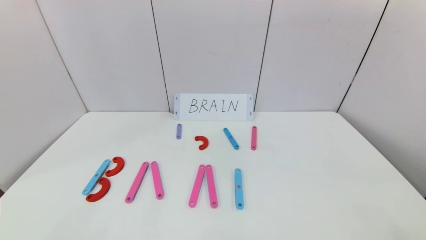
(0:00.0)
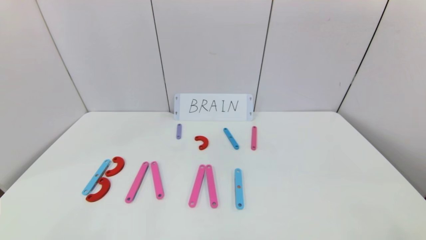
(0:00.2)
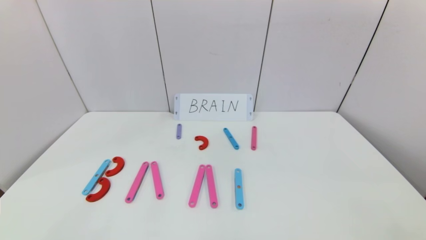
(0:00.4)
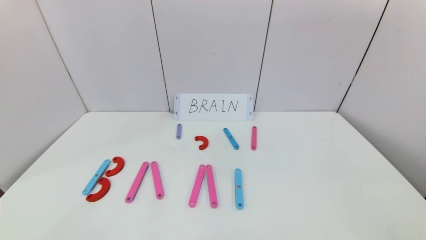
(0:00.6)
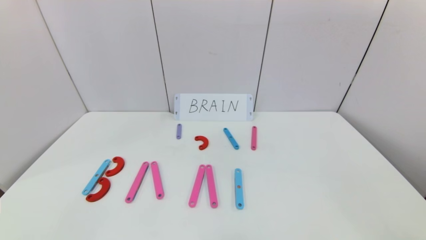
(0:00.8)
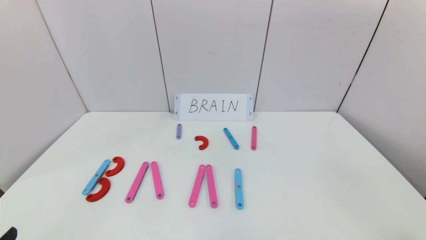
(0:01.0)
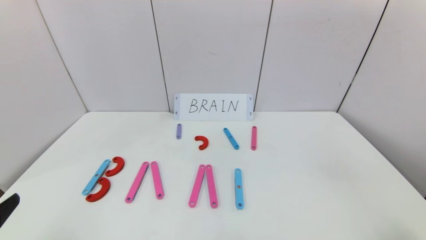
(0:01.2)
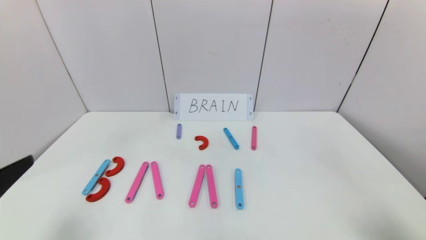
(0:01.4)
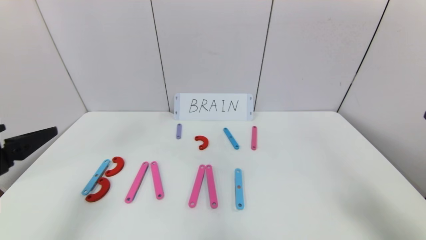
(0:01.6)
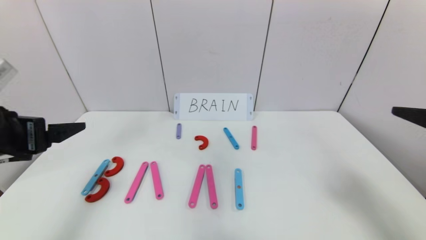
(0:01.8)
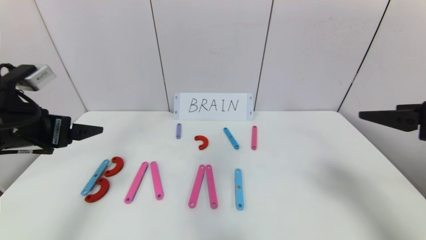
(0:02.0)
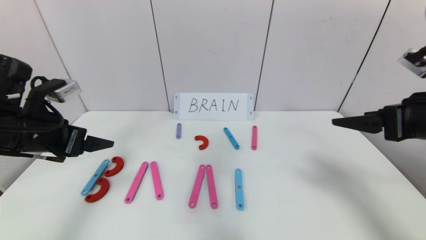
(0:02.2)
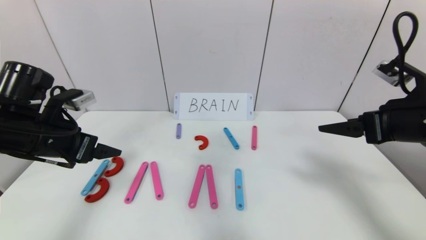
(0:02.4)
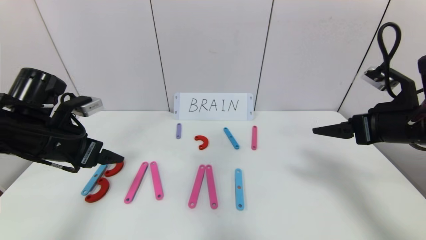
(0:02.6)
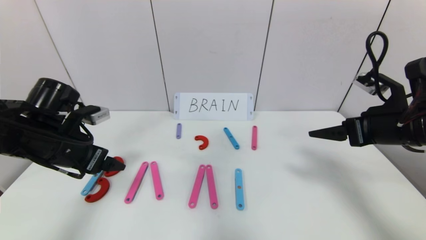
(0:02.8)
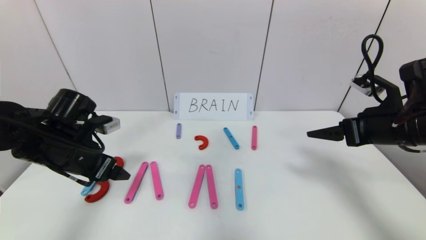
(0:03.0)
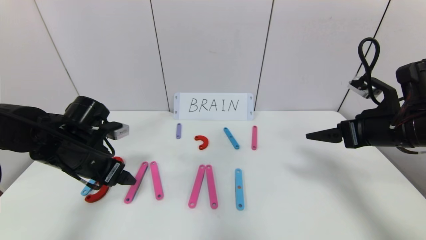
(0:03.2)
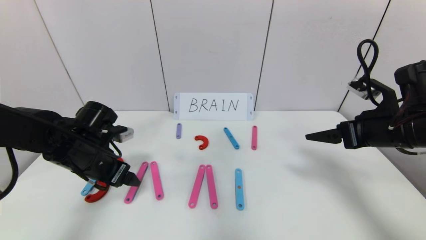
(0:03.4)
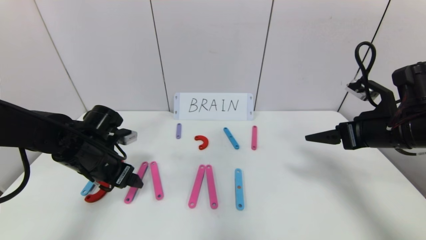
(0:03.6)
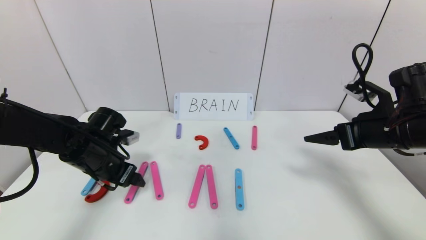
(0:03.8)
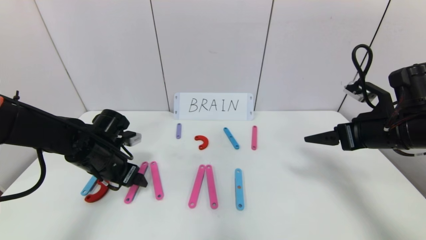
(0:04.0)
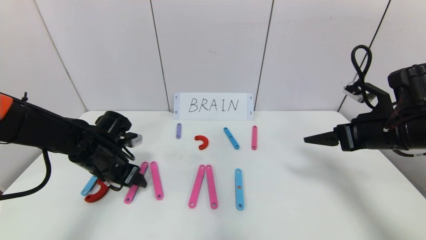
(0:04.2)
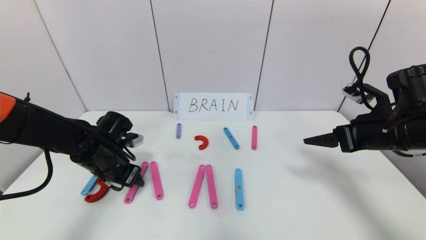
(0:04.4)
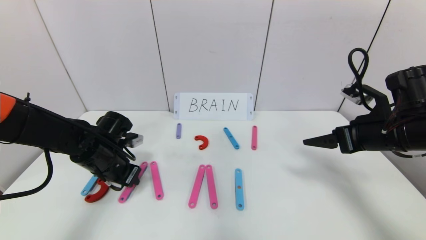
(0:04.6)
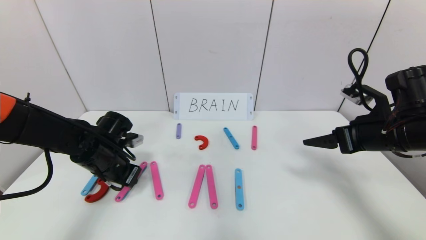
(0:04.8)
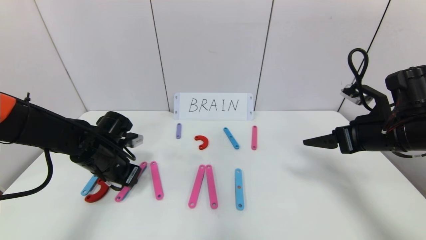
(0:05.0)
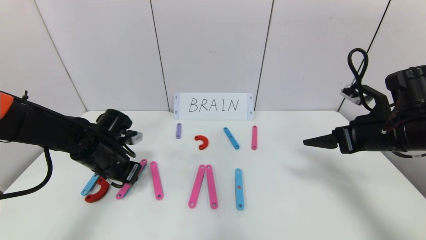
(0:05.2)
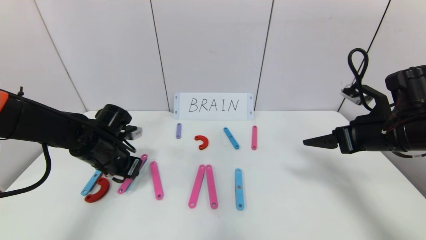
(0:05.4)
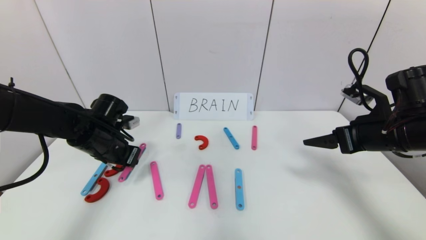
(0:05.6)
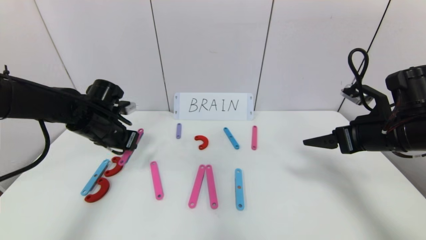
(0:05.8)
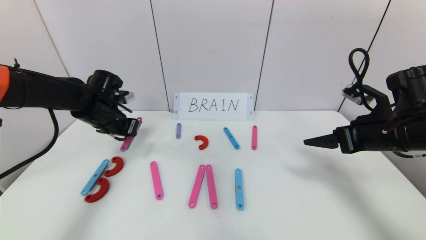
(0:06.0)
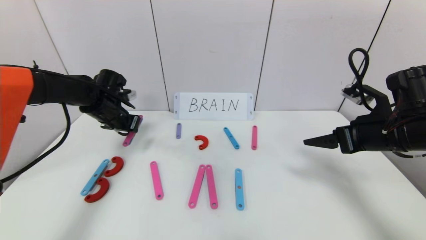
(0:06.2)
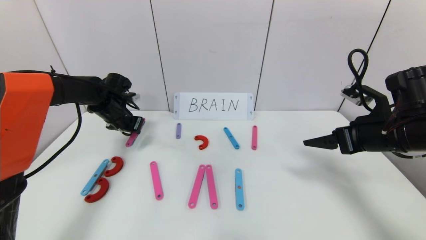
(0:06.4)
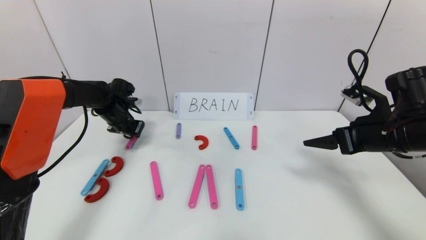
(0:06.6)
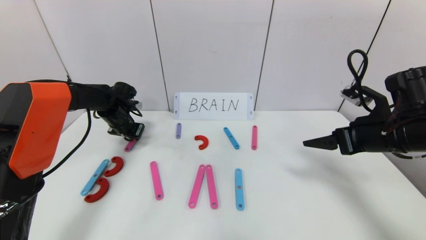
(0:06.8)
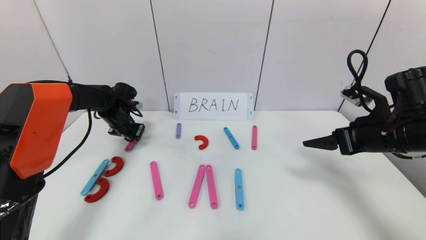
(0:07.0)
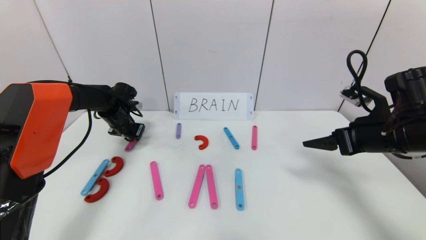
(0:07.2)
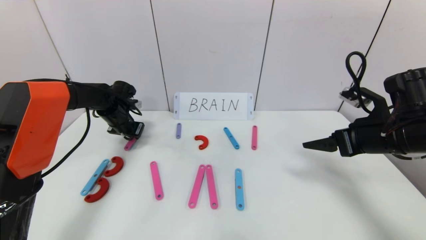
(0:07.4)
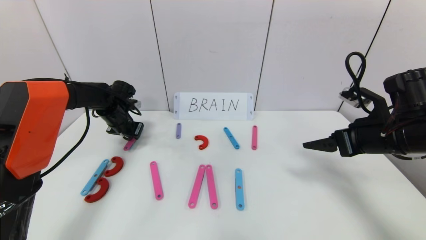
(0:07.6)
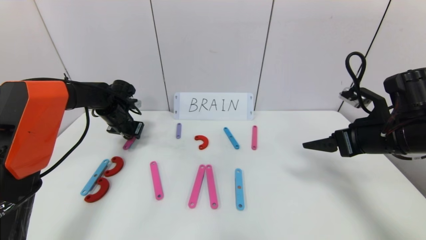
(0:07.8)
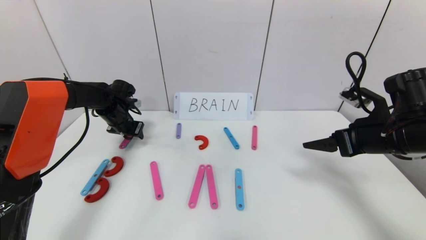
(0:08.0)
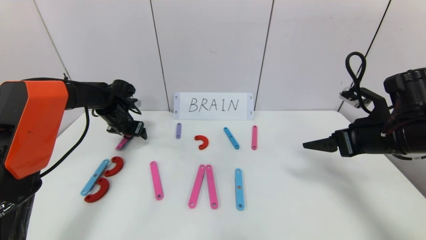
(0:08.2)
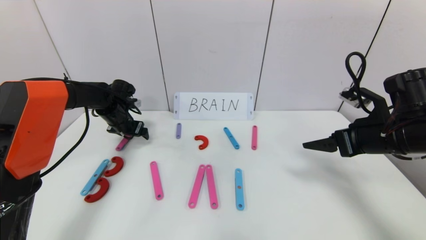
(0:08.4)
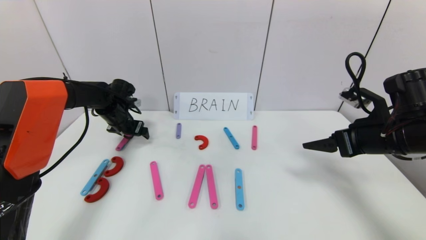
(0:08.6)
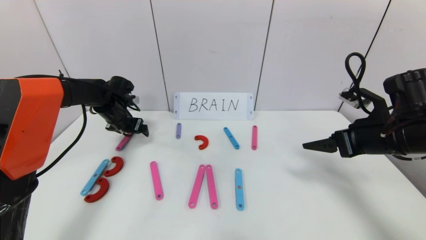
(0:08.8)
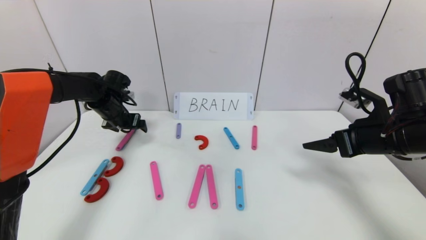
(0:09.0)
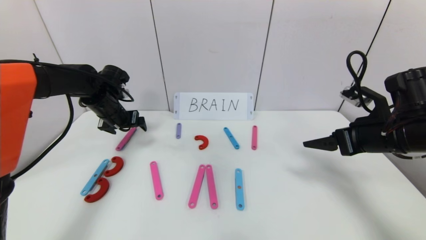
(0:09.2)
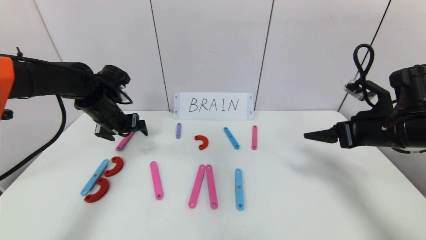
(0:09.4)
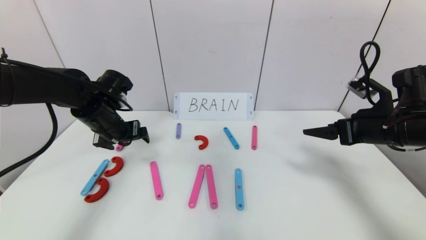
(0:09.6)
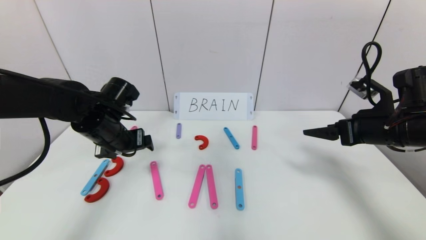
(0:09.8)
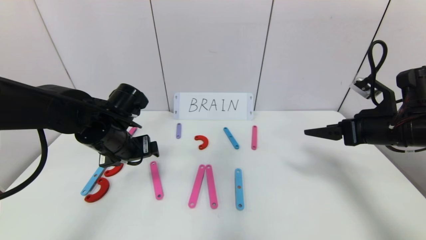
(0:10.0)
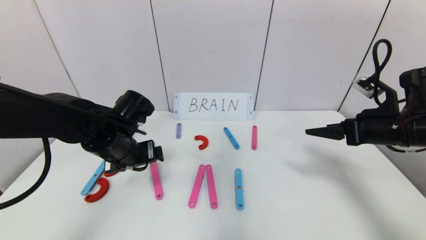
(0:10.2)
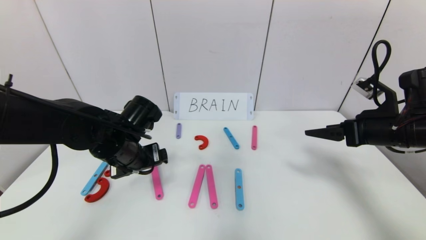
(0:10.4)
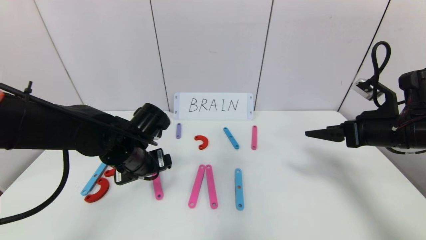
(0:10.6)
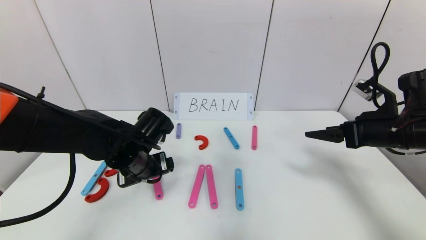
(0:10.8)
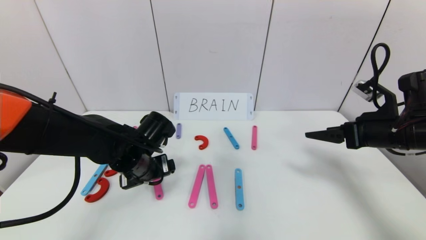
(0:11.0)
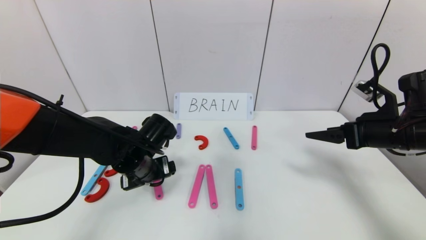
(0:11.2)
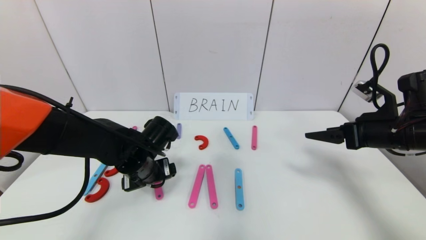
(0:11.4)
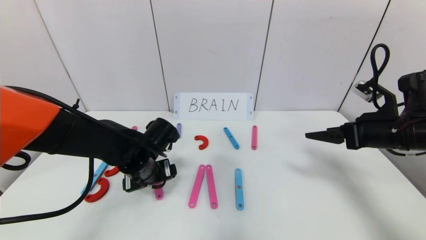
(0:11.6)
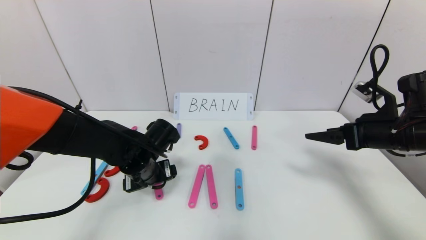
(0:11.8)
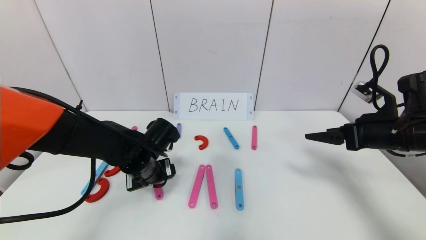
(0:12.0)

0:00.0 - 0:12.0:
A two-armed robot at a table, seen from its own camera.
Task of the whole recording: rearrange the word baai as brain.
0:00.0 - 0:01.6: The two grippers go about 25 cm upward and forward.
0:01.6 - 0:03.0: The right gripper is displaced forward by about 15 cm. The left gripper is displaced forward and downward by roughly 15 cm.
0:03.0 - 0:04.4: The left gripper heads downward, covering approximately 5 cm, and closes its fingers.
0:04.4 - 0:06.0: The left gripper travels forward and upward by about 10 cm, and closes its fingers.
0:06.0 - 0:07.6: The left gripper travels forward by about 5 cm.
0:07.6 - 0:09.0: The left gripper opens.
0:09.0 - 0:10.4: The left gripper heads backward and to the right, covering about 20 cm.
0:10.4 - 0:12.0: The left gripper shifts approximately 5 cm downward.

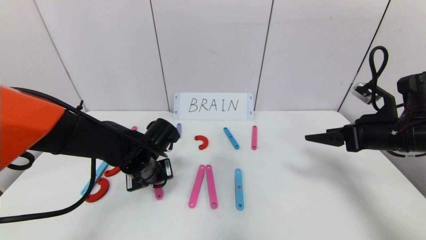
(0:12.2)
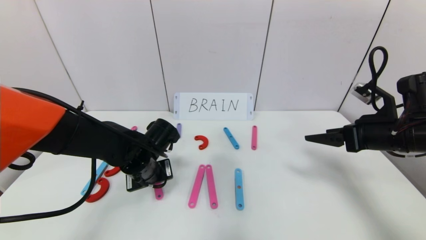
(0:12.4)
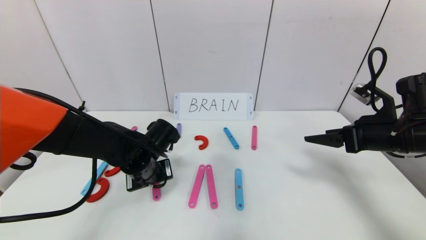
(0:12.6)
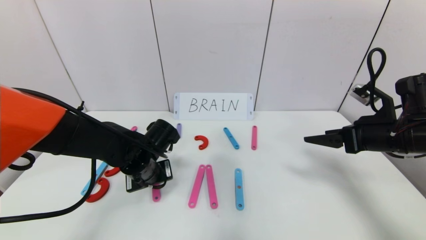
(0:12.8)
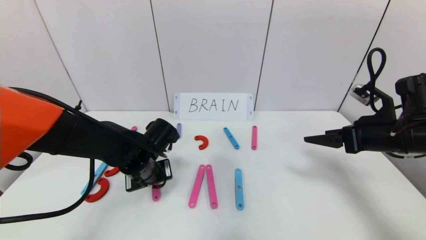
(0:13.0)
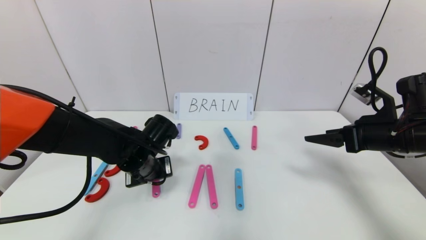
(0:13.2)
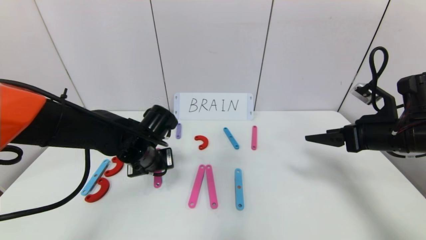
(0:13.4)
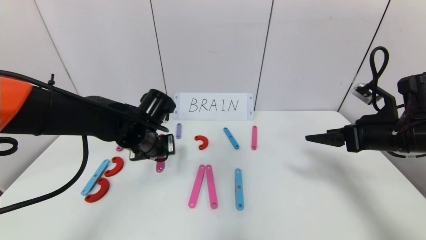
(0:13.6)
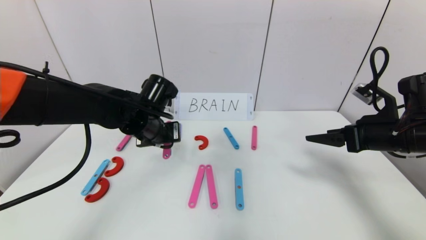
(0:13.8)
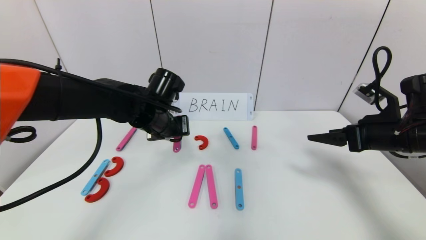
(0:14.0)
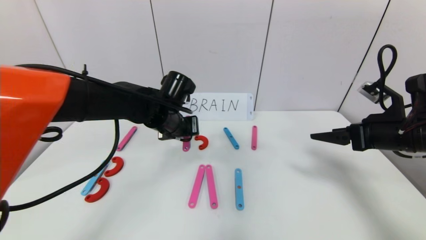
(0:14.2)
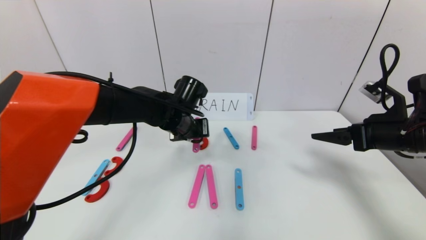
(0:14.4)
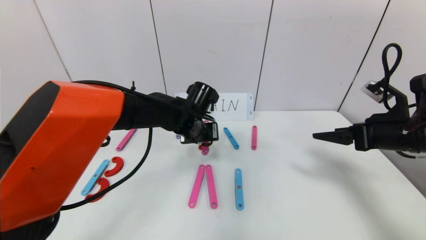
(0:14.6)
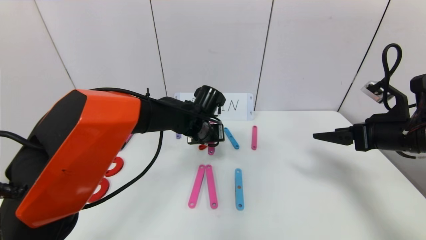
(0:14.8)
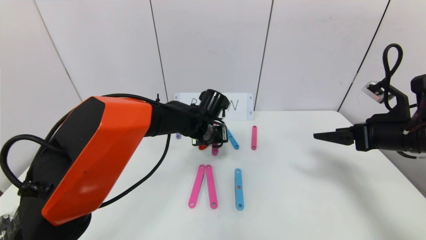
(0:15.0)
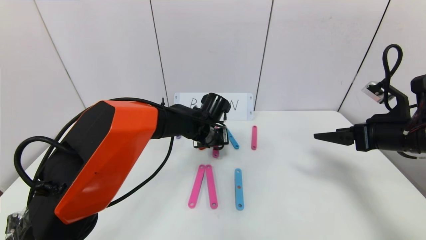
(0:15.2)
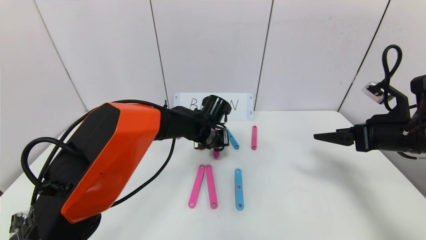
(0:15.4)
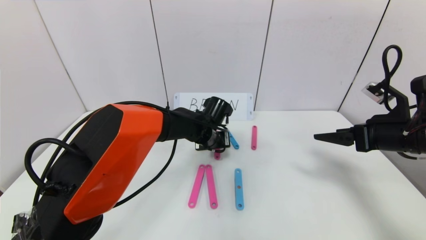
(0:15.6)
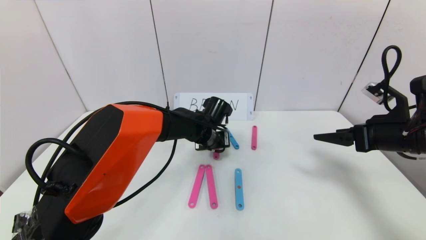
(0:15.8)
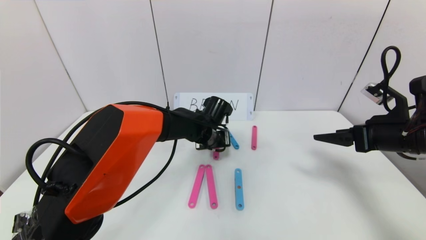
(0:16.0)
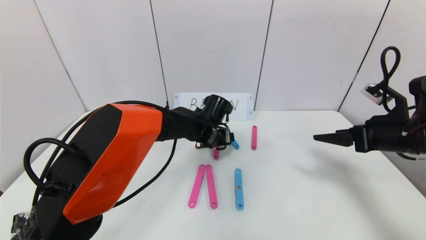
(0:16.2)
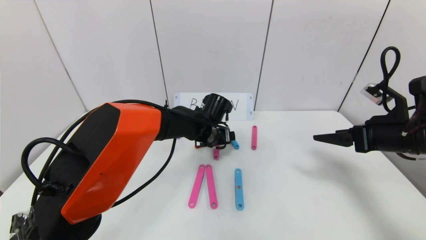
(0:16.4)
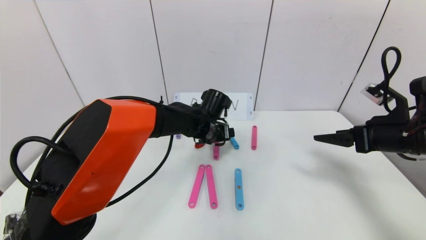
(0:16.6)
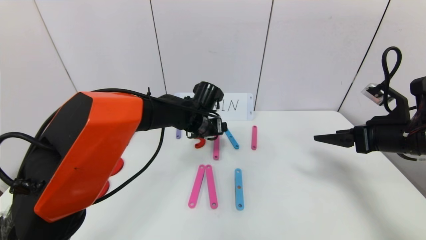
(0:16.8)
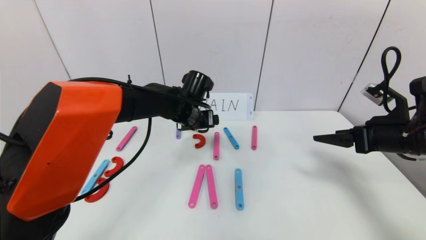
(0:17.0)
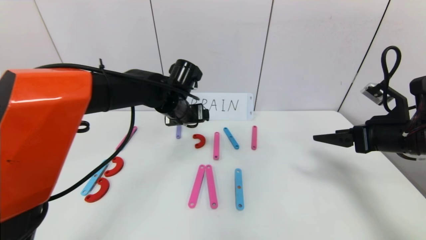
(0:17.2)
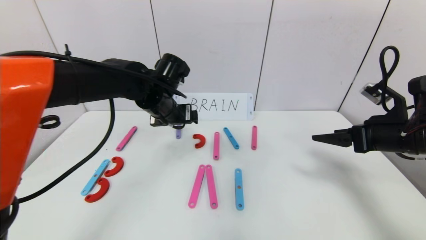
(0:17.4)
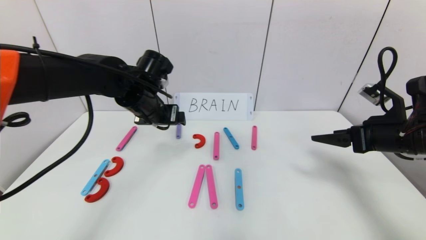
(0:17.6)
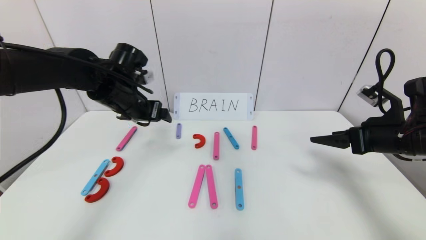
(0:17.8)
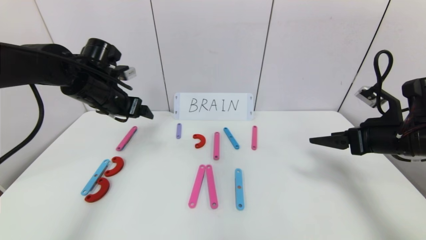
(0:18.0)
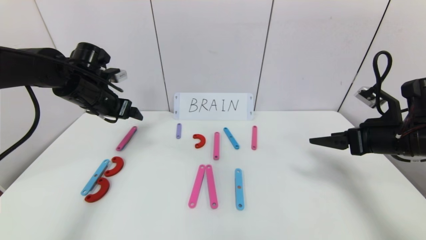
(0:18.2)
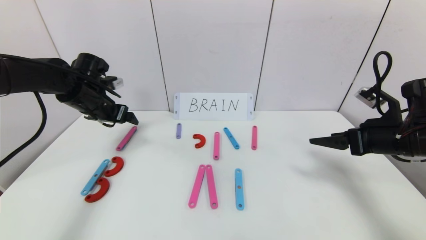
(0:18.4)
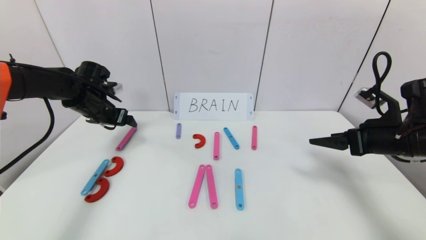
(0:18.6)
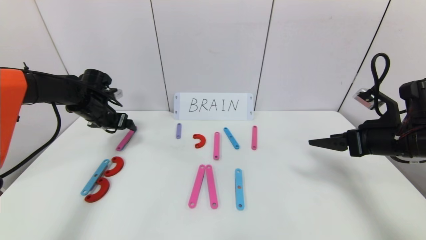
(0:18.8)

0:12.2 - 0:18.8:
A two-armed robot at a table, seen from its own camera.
Task of the whole recording: rearrange the word baai as brain.
Step, 0:12.2 - 0:16.4: Disassemble the second character A.
0:12.2 - 0:13.8: The left gripper travels upward by about 10 cm, and closes its fingers.
0:13.8 - 0:15.4: The left gripper goes roughly 15 cm to the right, forward and downward.
0:15.4 - 0:17.2: The left gripper goes some 10 cm upward and to the left, and opens up.
0:17.2 - 0:18.8: The left gripper heads to the left, covering approximately 25 cm.
